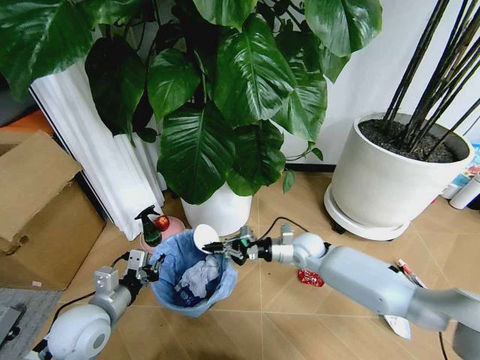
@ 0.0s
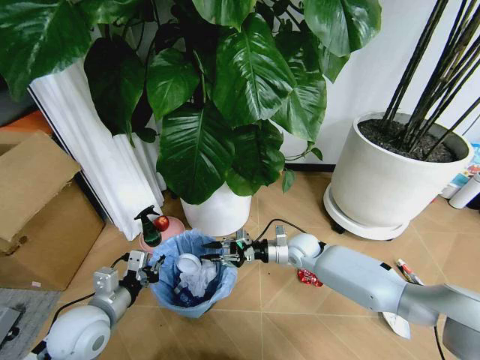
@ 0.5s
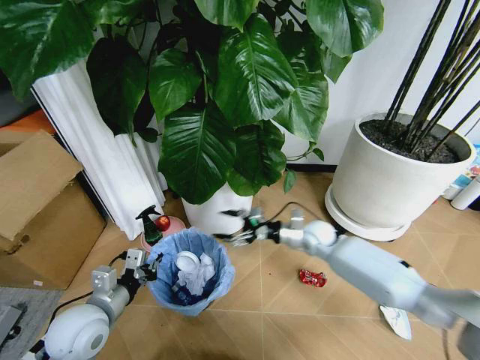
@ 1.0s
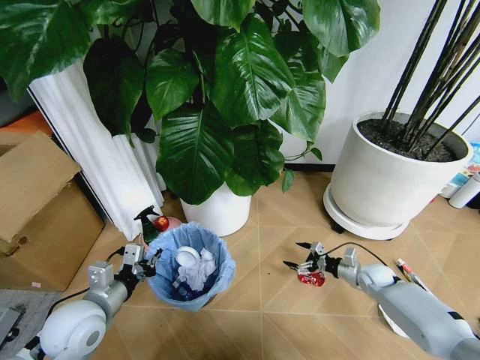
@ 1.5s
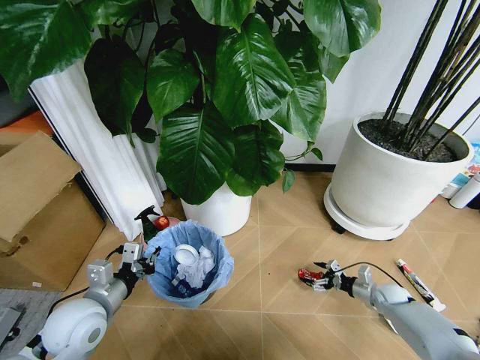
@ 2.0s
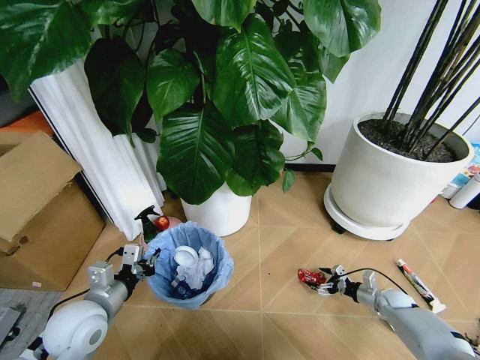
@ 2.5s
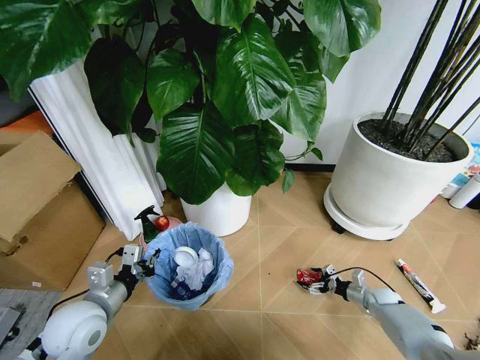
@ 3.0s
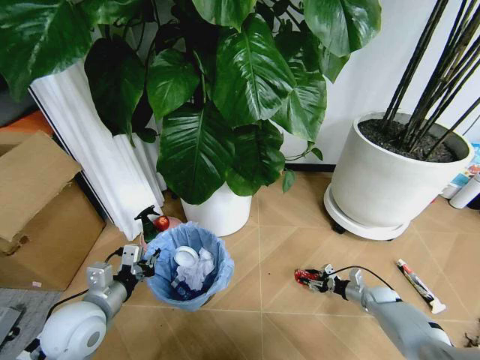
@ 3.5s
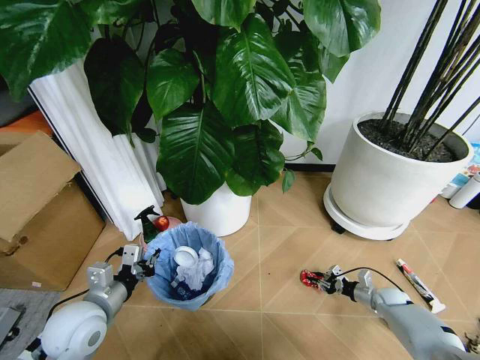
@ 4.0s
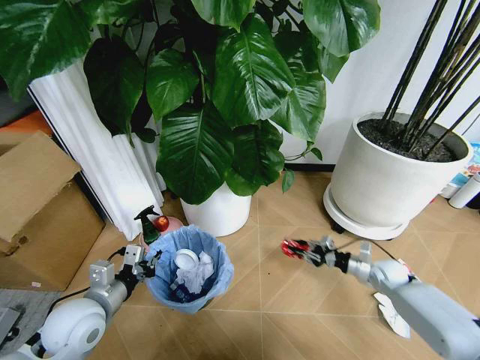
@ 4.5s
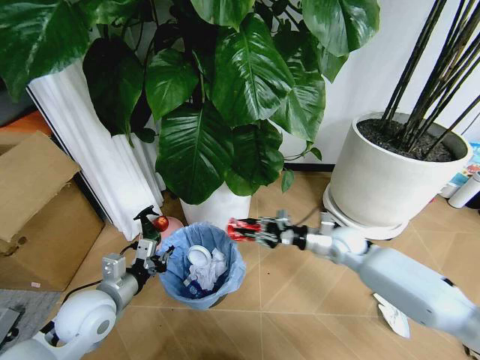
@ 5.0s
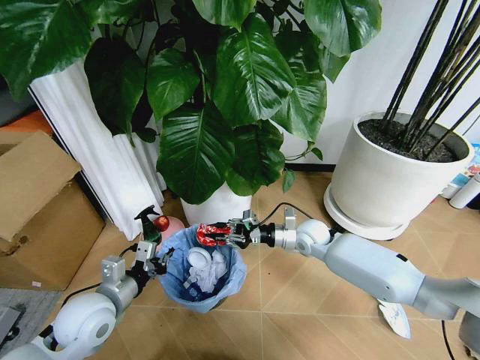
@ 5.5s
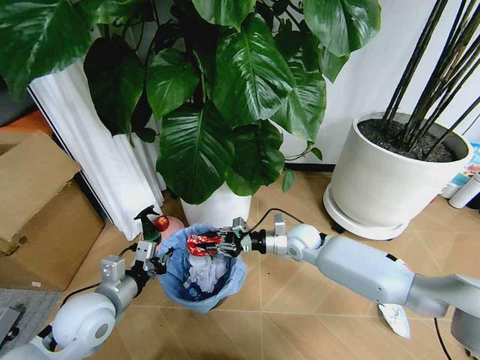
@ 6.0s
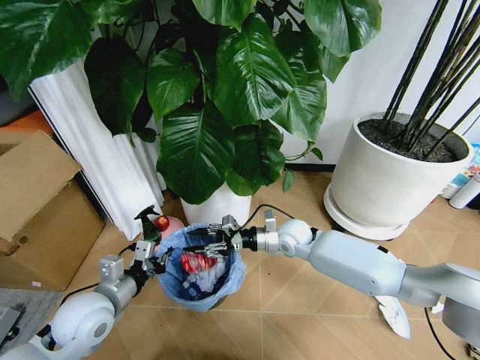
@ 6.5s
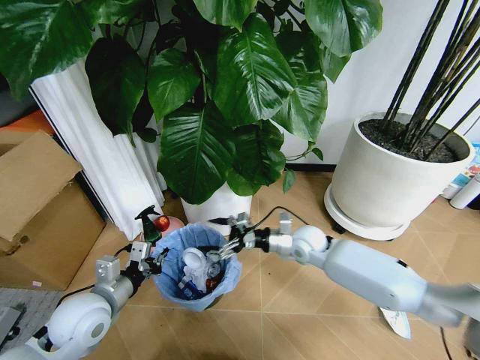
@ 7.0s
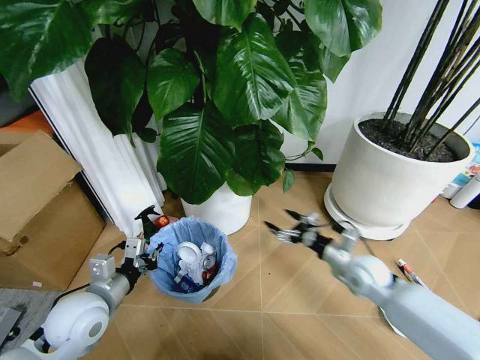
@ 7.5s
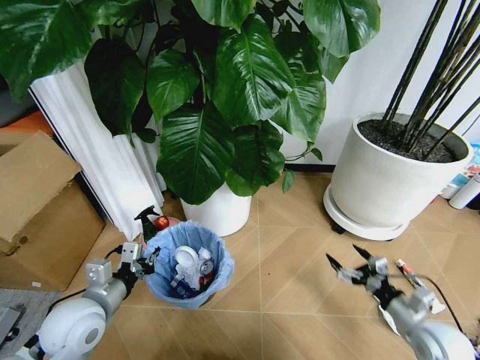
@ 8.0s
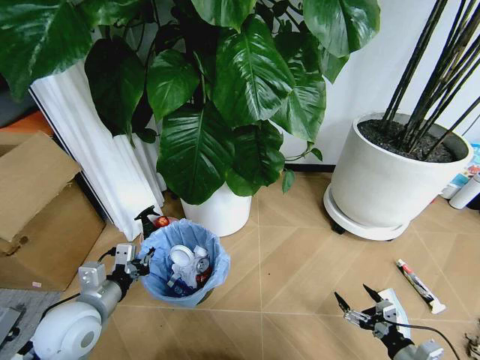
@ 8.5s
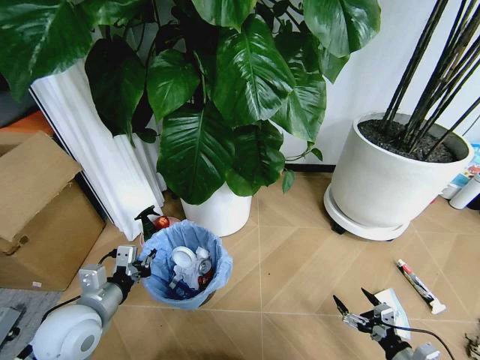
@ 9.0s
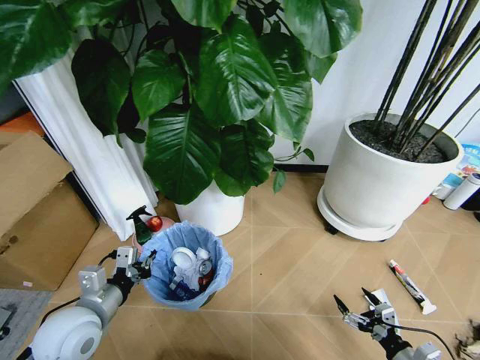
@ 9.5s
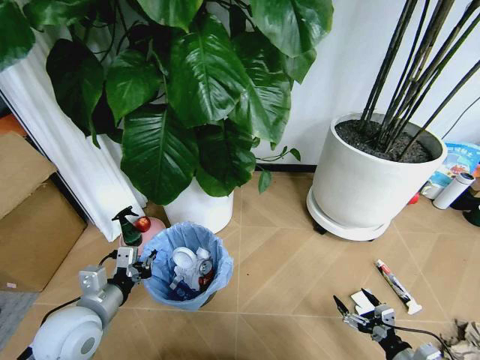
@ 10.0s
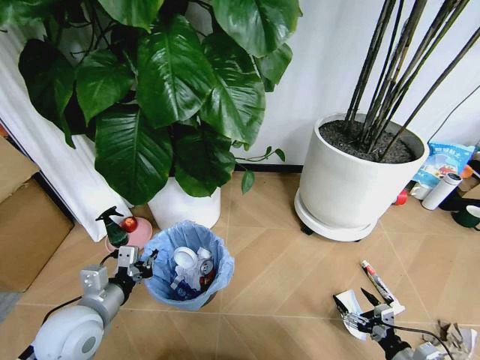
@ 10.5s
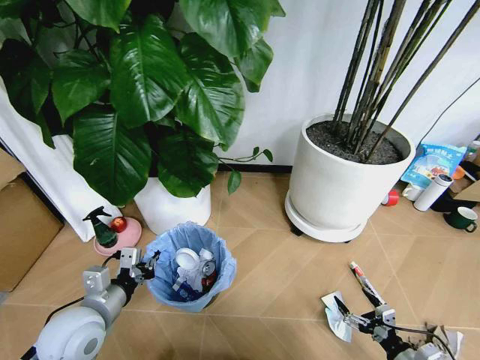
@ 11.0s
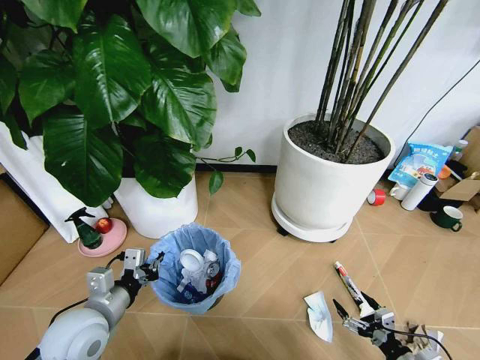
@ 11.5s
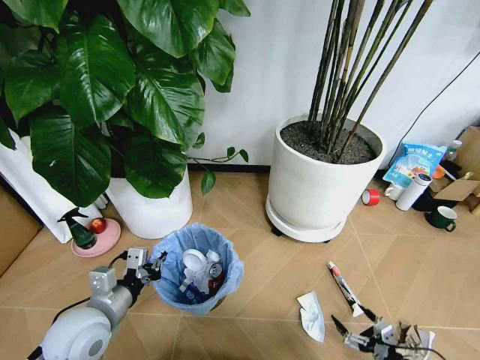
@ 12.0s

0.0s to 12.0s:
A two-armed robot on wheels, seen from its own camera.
Task of the whole recording: Pick up the trash bin and place the garbage on the floor into it.
0.0s to 2.0s: The right gripper goes approximately 30 cm to the right and downward, and opens its fingers.
2.0s to 4.0s: The right gripper closes.
4.0s to 6.0s: The right gripper goes approximately 35 cm to the left and upward.
6.0s to 8.0s: The right gripper is displaced to the right and backward by some 35 cm, and opens.
8.0s to 10.0s: The right gripper shifts roughly 15 cm backward and downward.

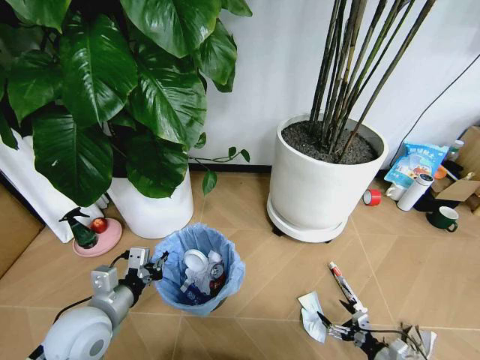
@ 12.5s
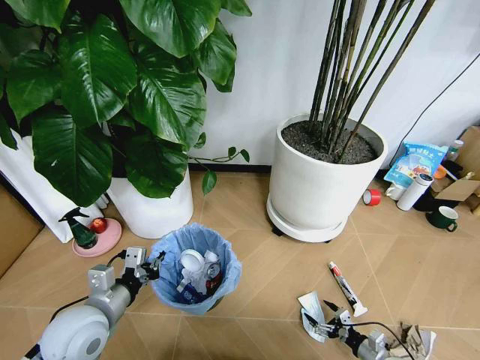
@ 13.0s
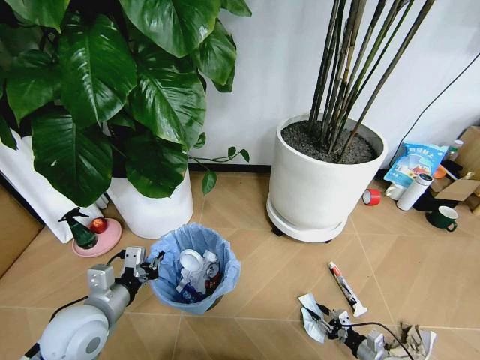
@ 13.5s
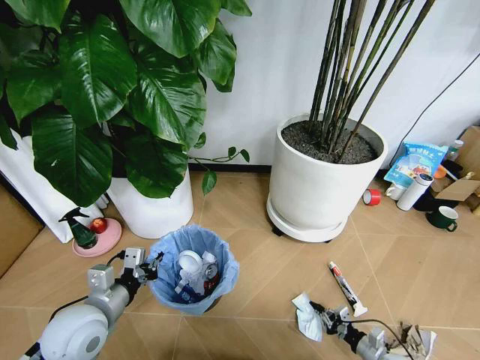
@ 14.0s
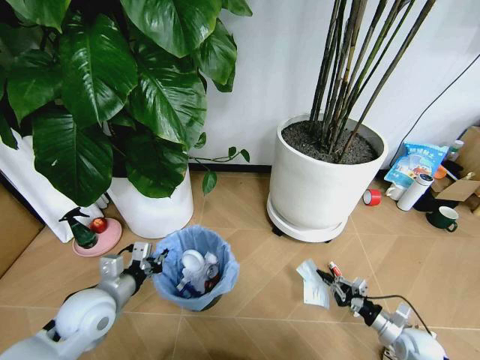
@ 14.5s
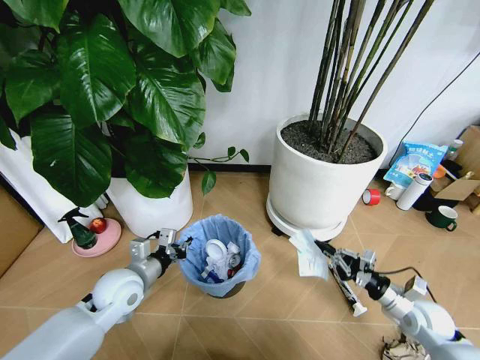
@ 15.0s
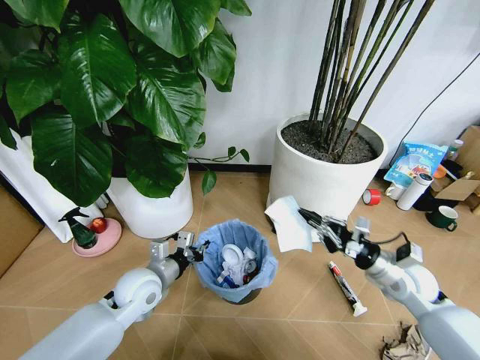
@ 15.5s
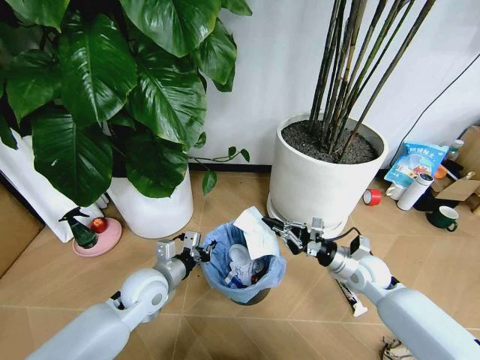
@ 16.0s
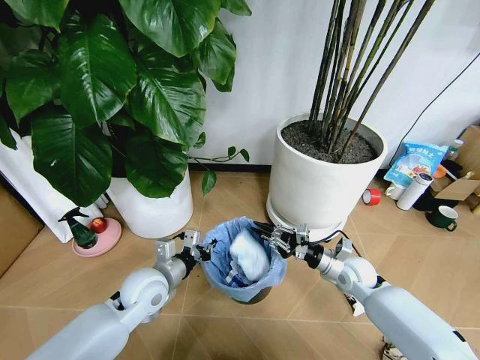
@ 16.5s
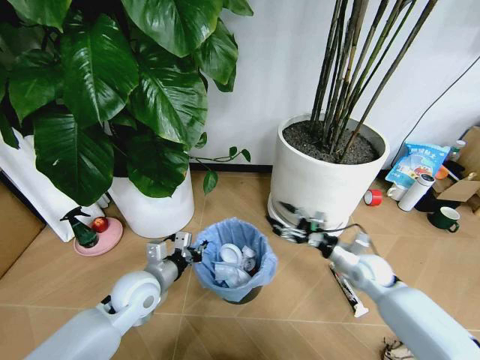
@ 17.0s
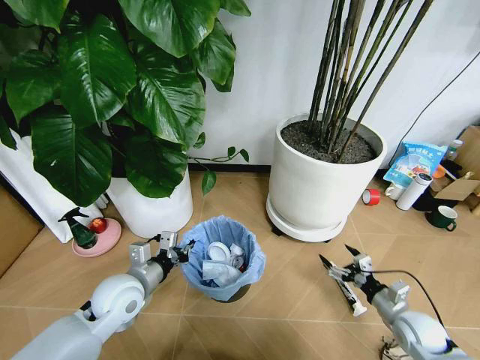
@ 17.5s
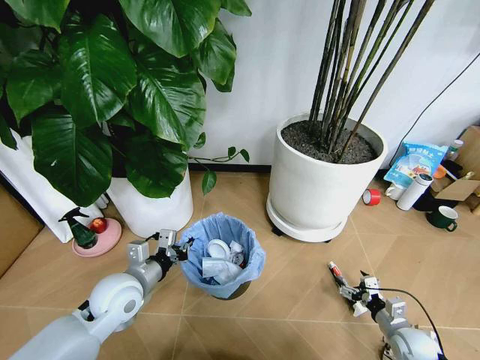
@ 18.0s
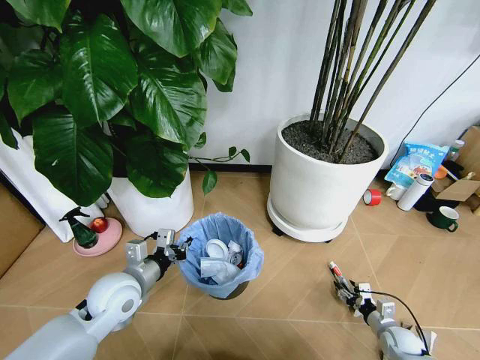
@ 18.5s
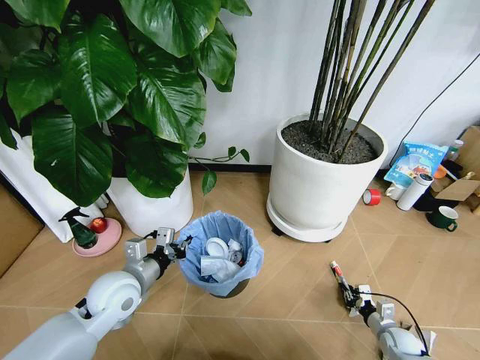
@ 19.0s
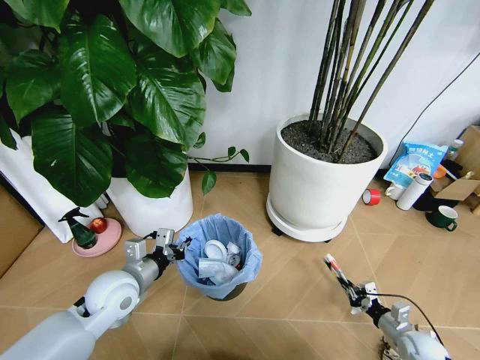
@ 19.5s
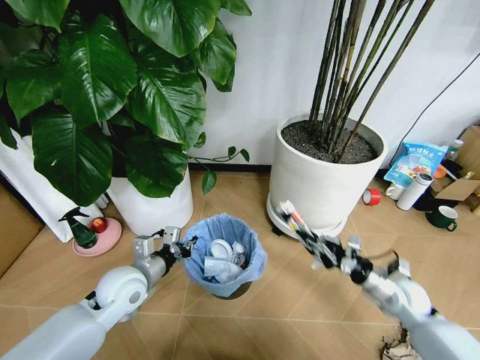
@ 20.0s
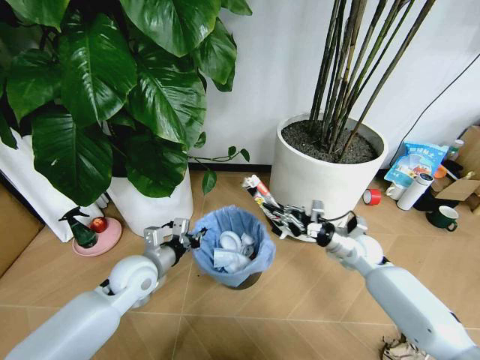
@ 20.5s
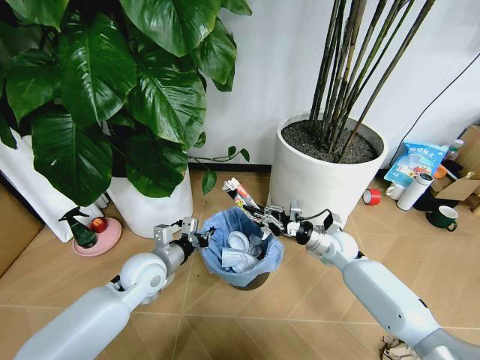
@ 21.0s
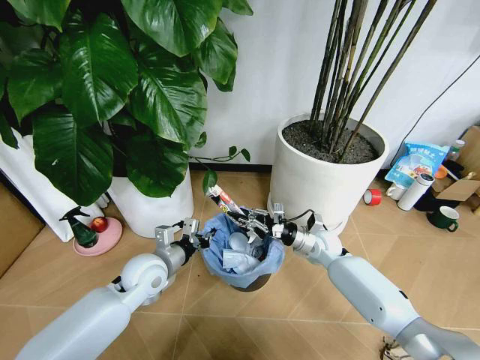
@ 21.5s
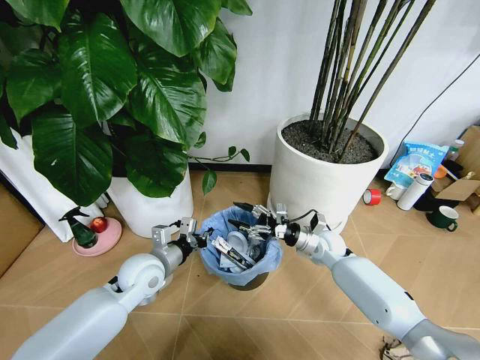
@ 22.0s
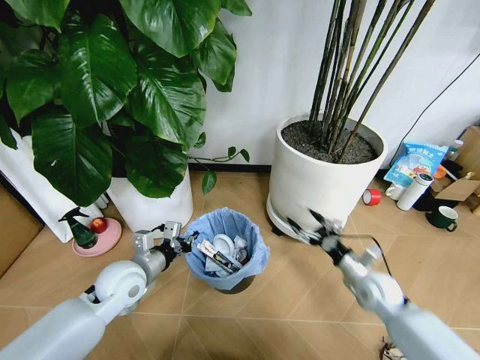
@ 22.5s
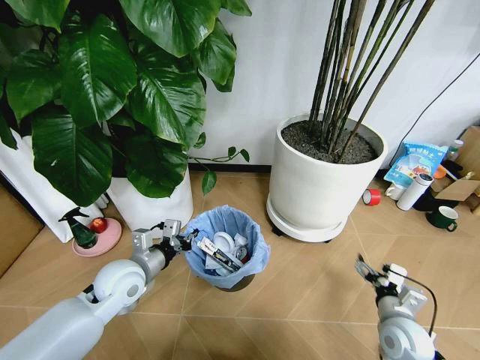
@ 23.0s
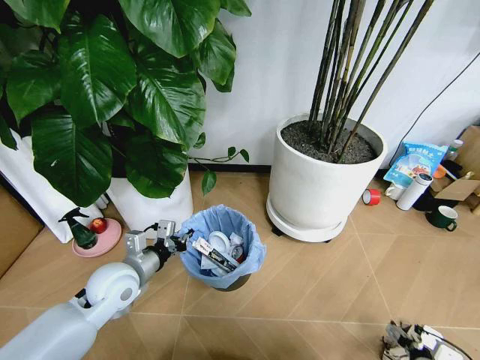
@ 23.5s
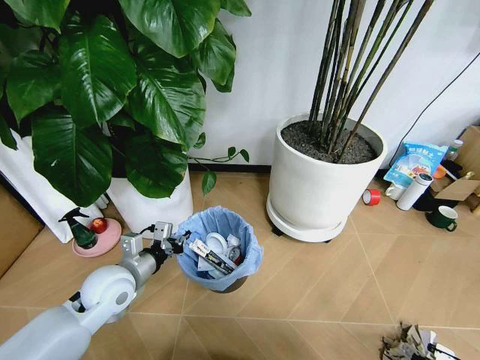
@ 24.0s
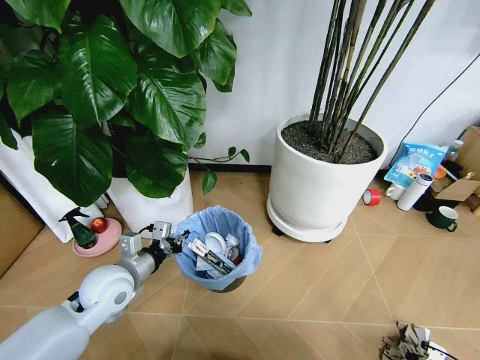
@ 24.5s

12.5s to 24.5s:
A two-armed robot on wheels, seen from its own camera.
Task of the whole recording: Pick up the trash bin and place the garbage on the floor into it.
12.5s to 14.5s: The right gripper is displaced forward by some 10 cm, and closes.
14.5s to 16.5s: The right gripper goes some 25 cm forward, to the left and upward; the left gripper is displaced to the right and forward by approximately 10 cm.
16.5s to 18.5s: The right gripper travels downward, to the right and backward by about 25 cm, and opens; the left gripper ends up some 5 cm from where it was.
18.5s to 20.5s: The right gripper travels upward, forward and to the left by some 30 cm, and closes its fingers.
20.5s to 22.5s: The right gripper goes to the left and returns, roughly 10 cm each way, and opens.
22.5s to 24.5s: The right gripper travels backward, to the right and downward by some 35 cm, and closes up.

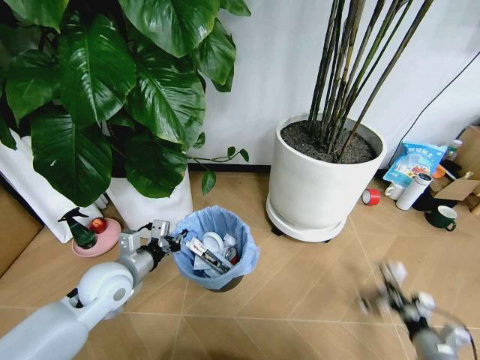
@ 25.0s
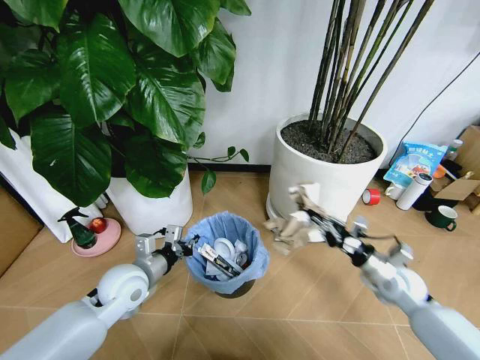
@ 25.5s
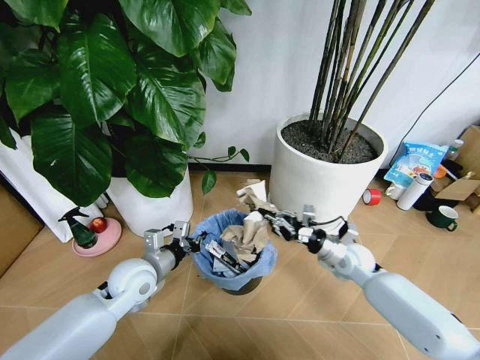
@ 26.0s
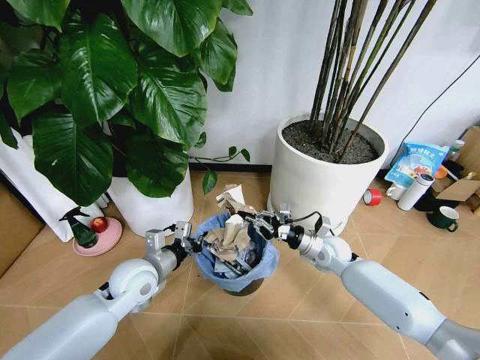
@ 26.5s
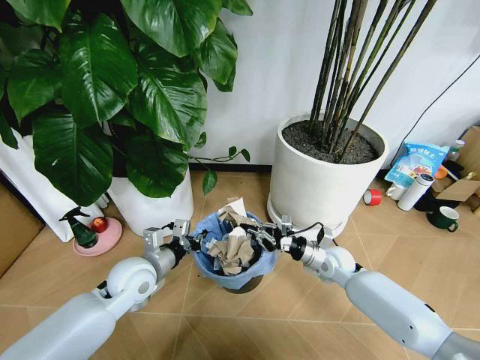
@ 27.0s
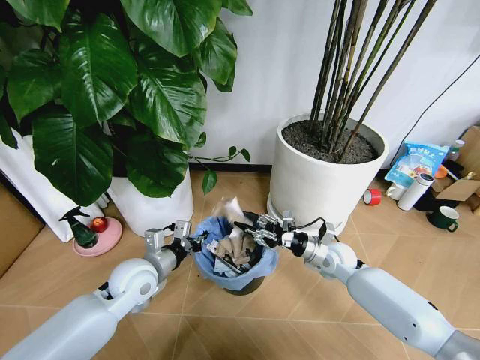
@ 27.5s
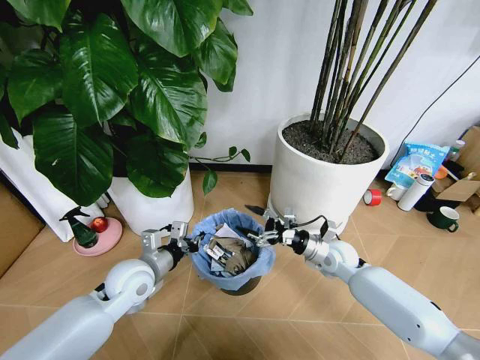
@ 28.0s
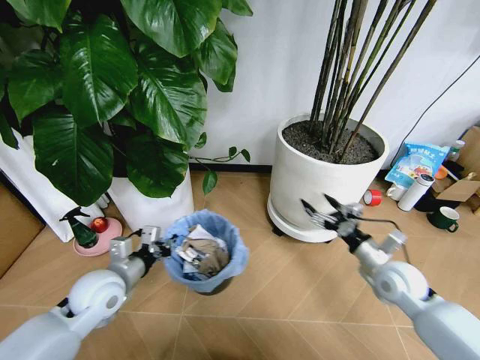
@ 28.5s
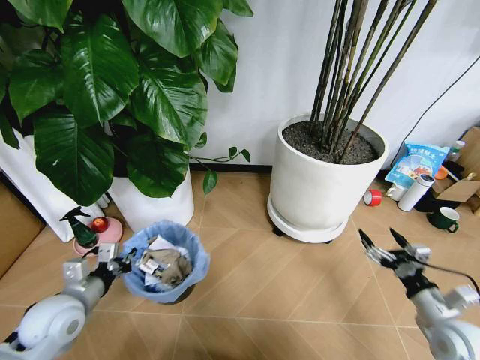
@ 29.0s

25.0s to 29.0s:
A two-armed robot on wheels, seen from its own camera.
Task of the whole recording: Pick up the trash bin and place the garbage on the floor into it.
25.0s to 27.0s: The right gripper travels forward and to the left by about 35 cm; the left gripper shifts by roughly 5 cm.
27.0s to 29.0s: The left gripper shifts roughly 15 cm to the left and backward, while the right gripper travels backward and to the right by approximately 30 cm, and opens up.
